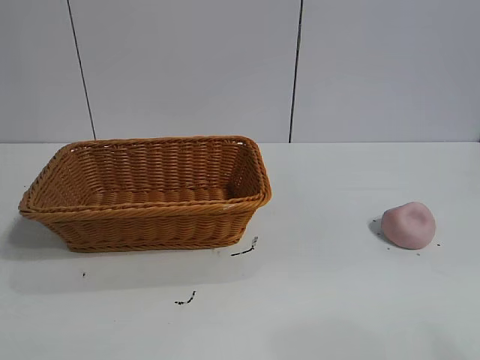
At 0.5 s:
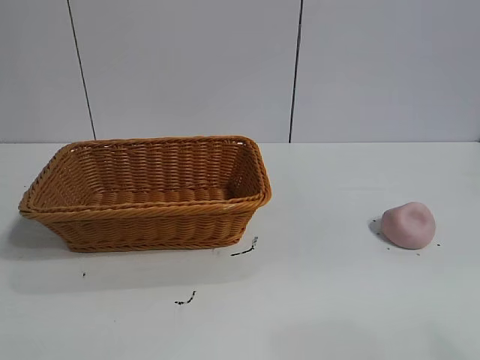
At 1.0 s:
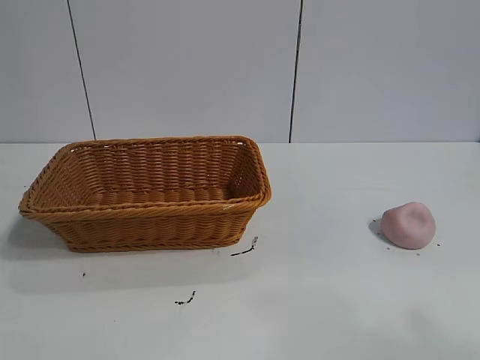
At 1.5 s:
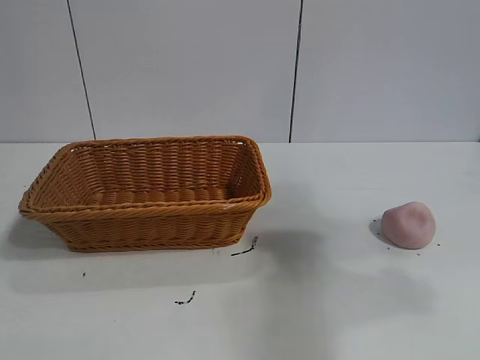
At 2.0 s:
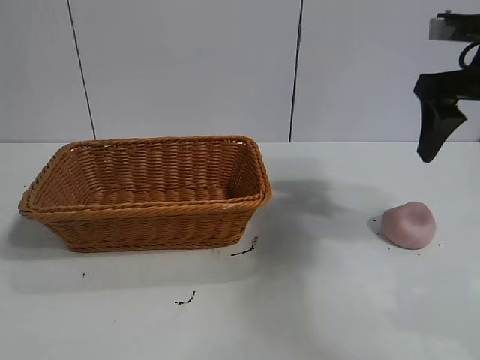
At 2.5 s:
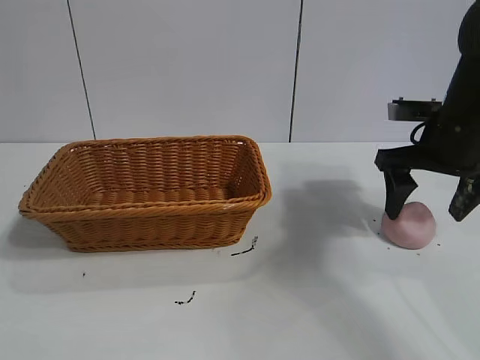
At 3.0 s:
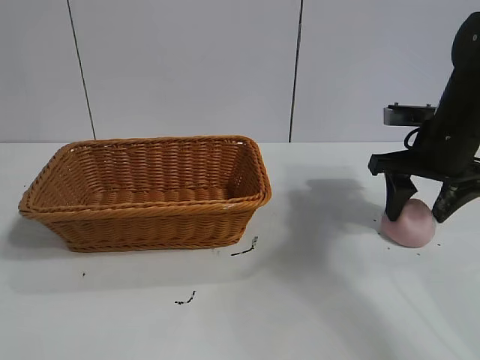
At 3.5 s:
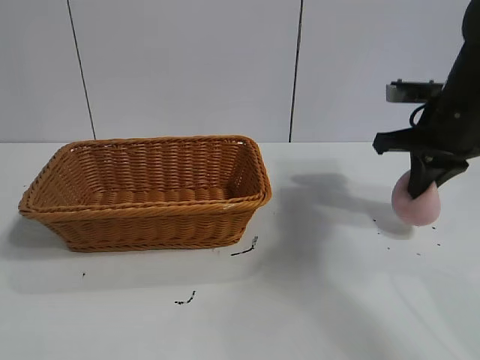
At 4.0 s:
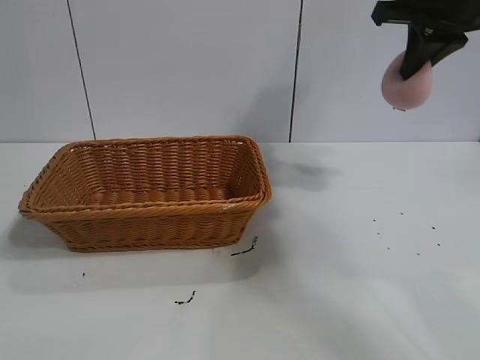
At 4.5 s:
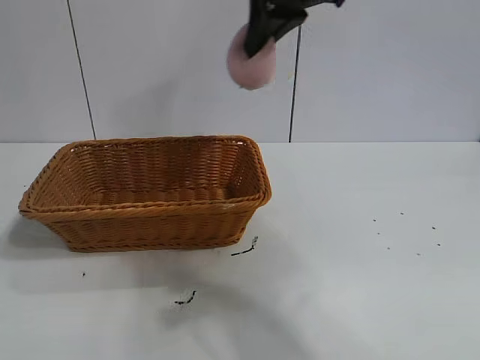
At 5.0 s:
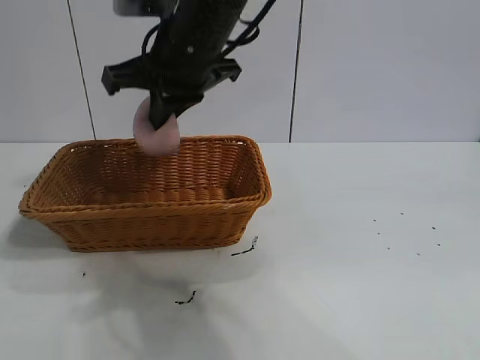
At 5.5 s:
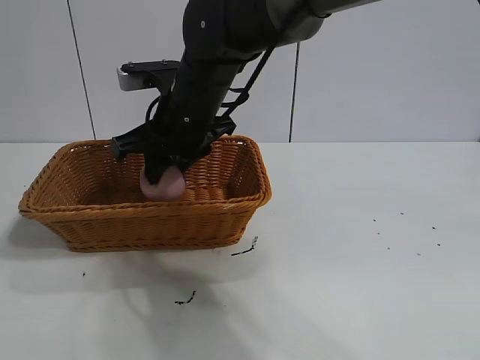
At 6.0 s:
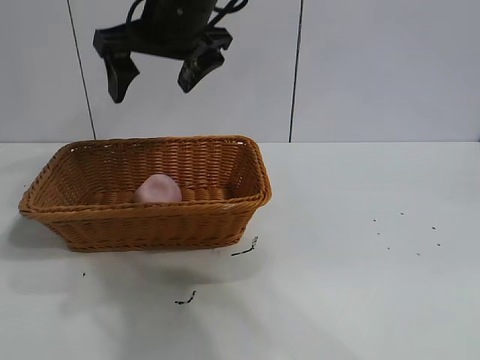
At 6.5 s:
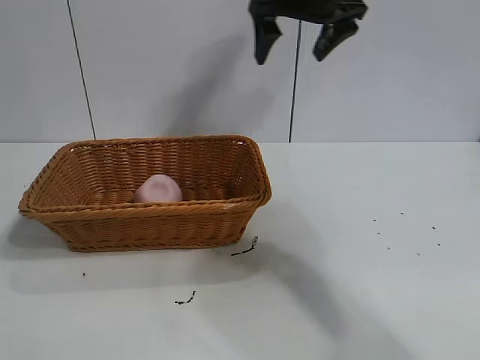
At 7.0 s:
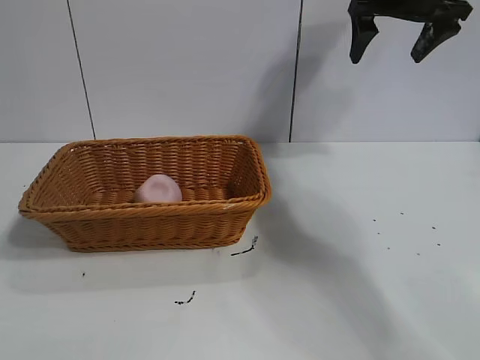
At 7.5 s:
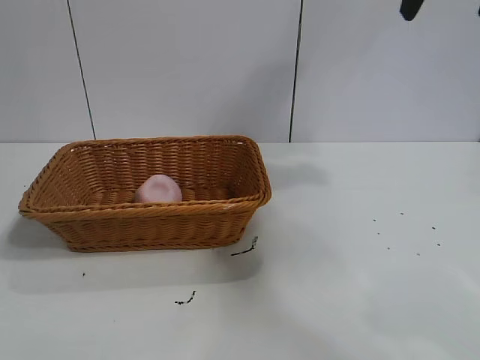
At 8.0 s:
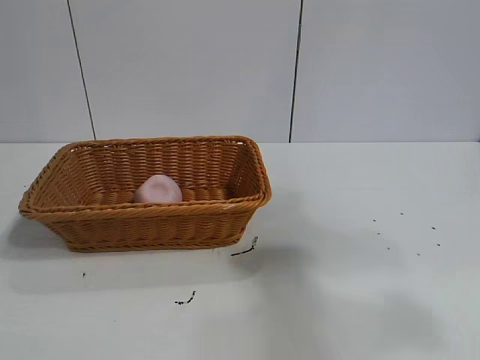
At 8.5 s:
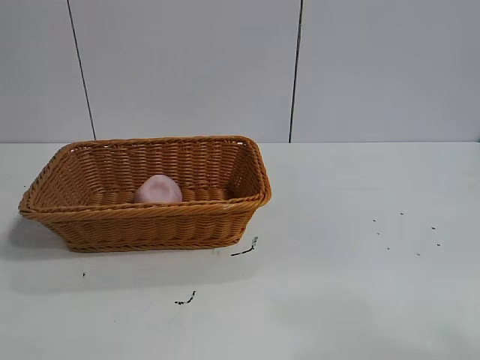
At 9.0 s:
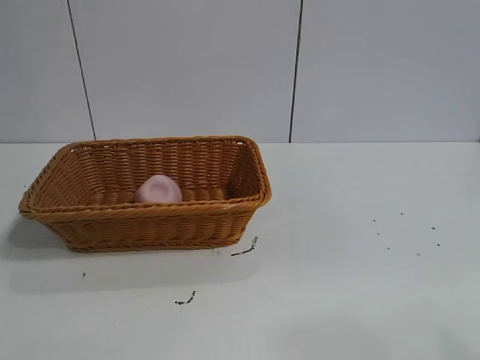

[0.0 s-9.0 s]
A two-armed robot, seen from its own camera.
Task of the whole recording: pick up the peach and put it into the basket.
Step, 1.0 to 3.5 s: Grasp the peach with right gripper.
Step, 4.0 to 5.5 s: Place the peach in the basket with right gripper.
